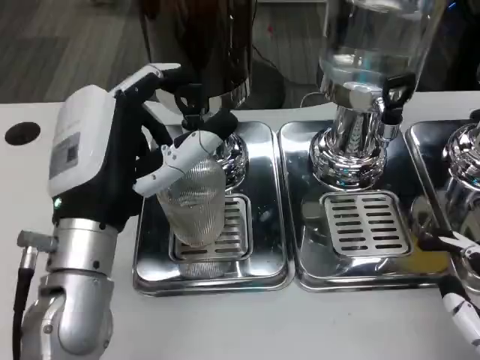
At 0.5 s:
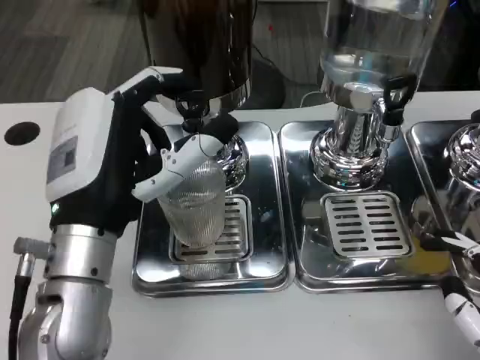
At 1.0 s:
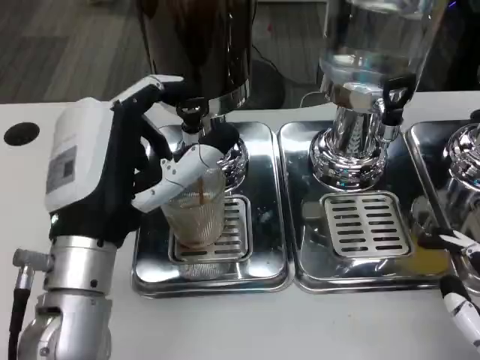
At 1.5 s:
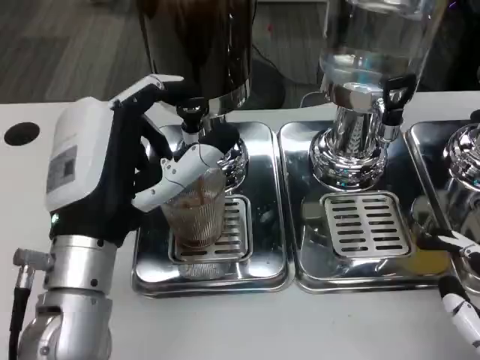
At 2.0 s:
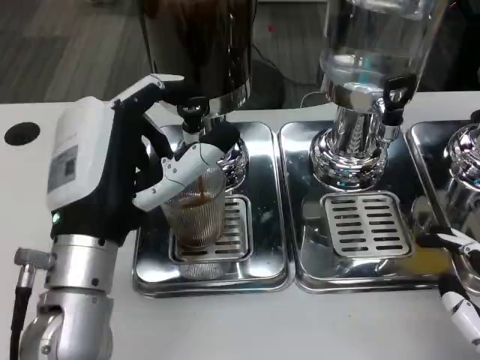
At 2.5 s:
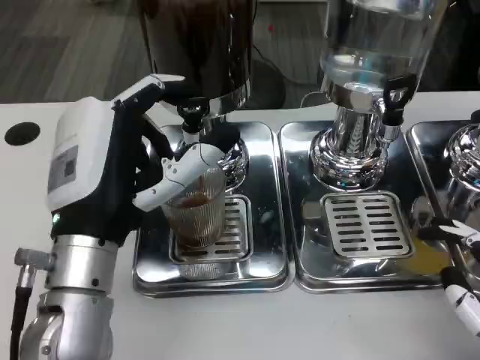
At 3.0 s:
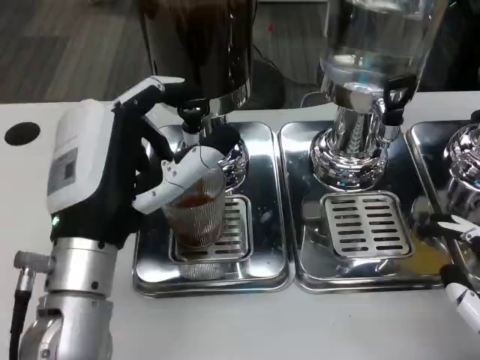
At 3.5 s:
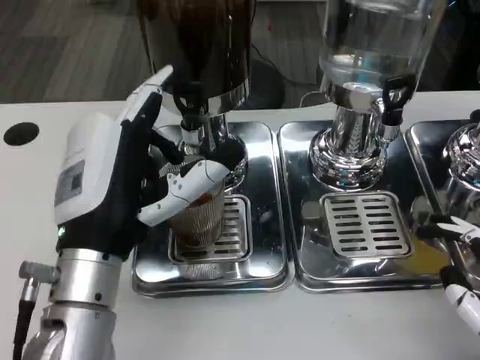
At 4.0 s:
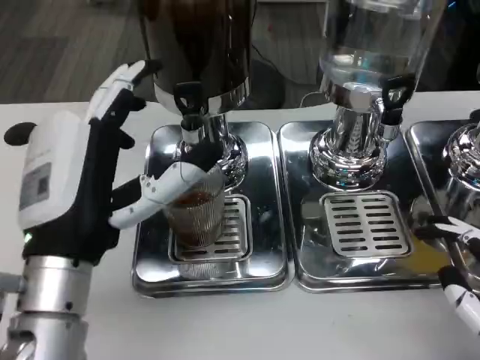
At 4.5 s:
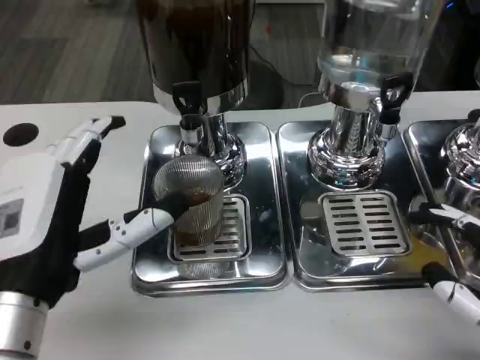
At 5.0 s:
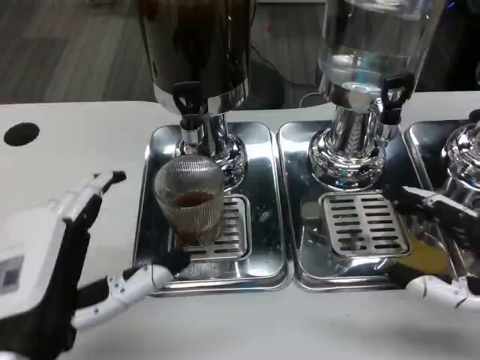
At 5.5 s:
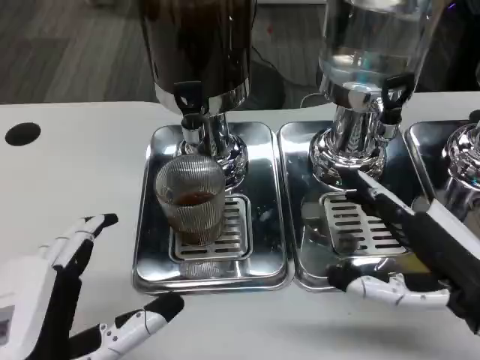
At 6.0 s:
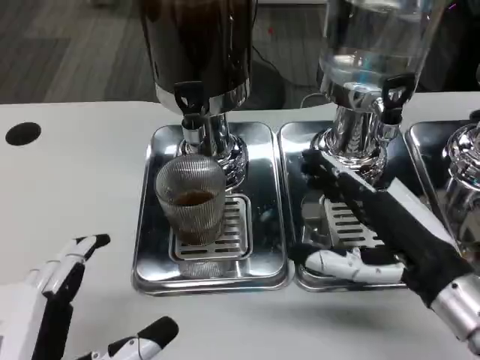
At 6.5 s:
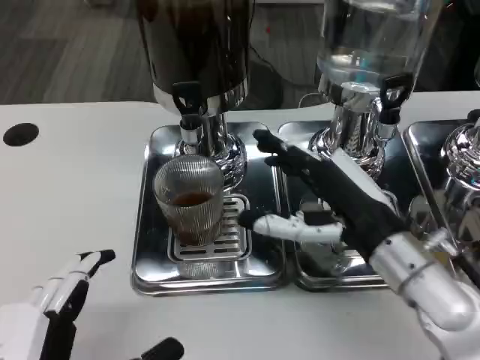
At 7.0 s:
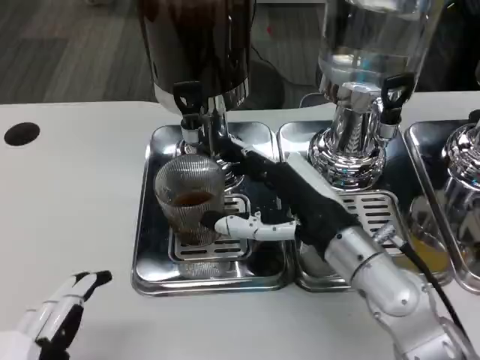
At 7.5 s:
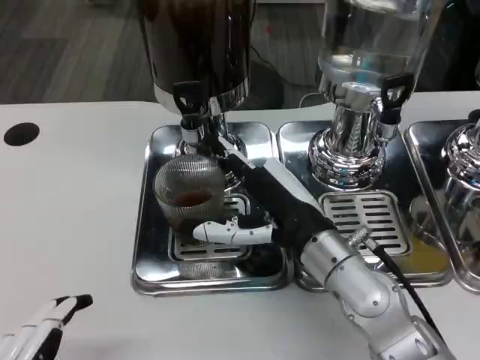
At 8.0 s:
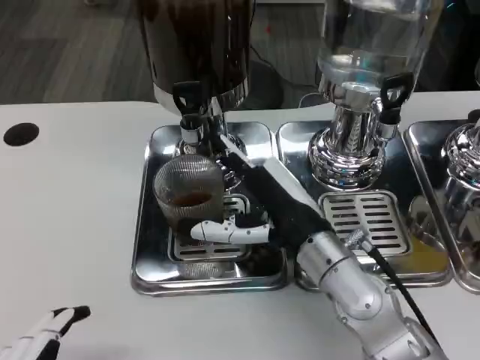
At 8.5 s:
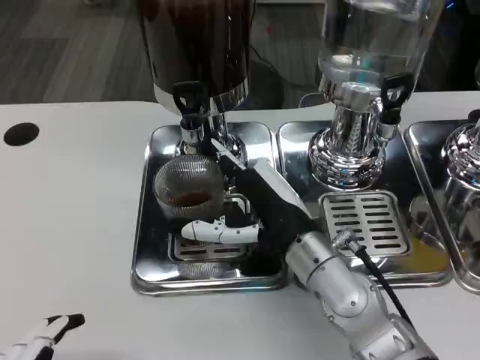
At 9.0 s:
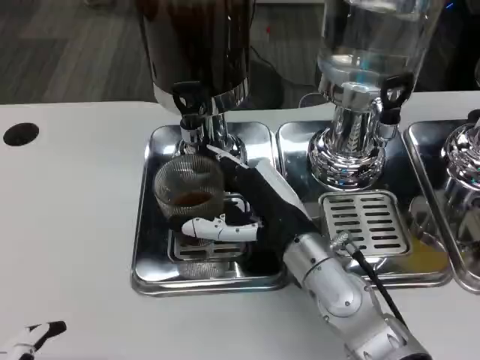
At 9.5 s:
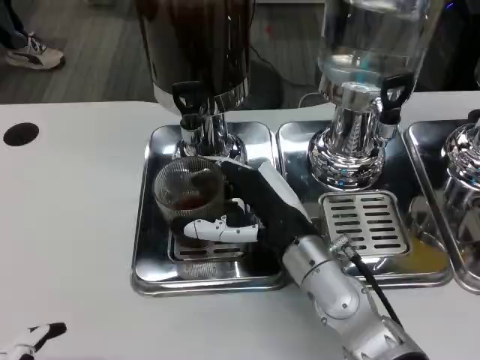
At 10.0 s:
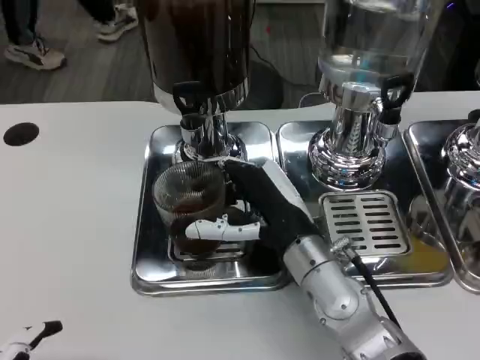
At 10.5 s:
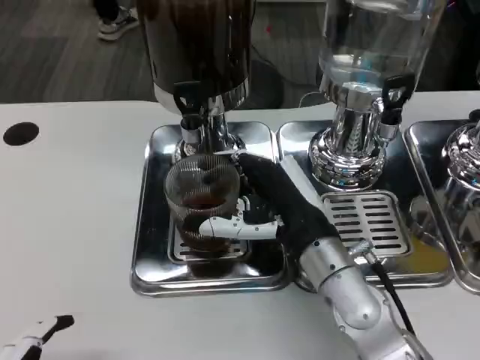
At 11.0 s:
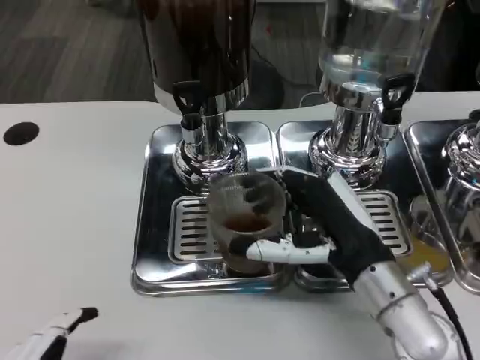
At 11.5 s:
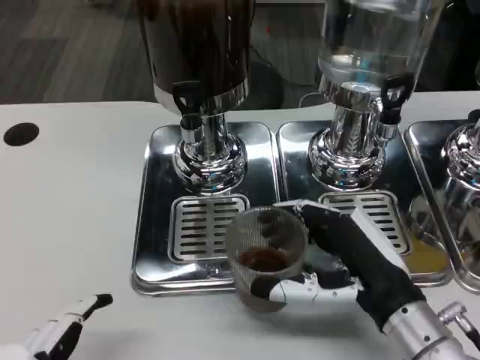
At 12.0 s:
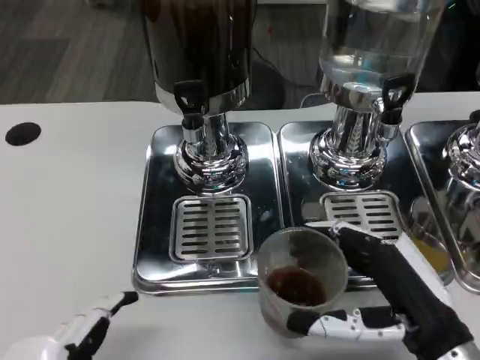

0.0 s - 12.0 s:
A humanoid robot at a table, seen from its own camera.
Task of the whole recording: Grasp the cup under the faucet to collect the drink, then remove the cup.
0.0 s - 2.0 s: The hands move only a little.
4.0 s - 6.0 s: The left hand is displaced backward by roughly 15 cm; the right hand moves forward and to the left, about 10 cm.
6.0 s - 8.0 s: The right hand shifts about 15 cm to the left and forward. The left hand shifts about 5 cm backward.
8.0 s - 10.0 s: The hands stay close to where they were, moving slightly.
10.0 s - 12.0 s: The right hand moves to the right and backward, some 15 cm.

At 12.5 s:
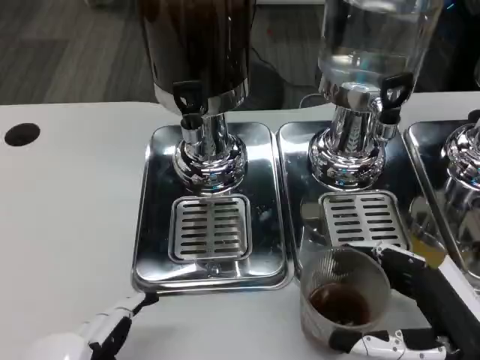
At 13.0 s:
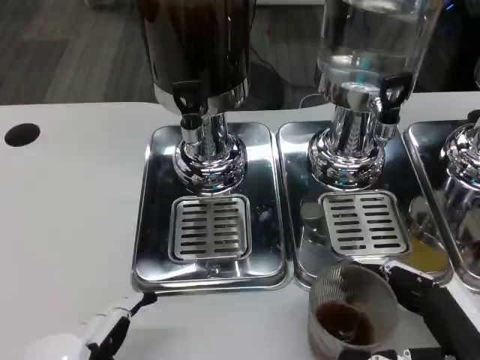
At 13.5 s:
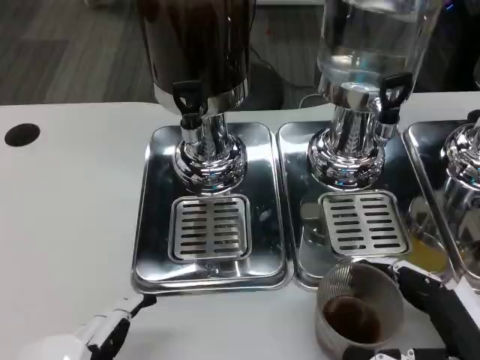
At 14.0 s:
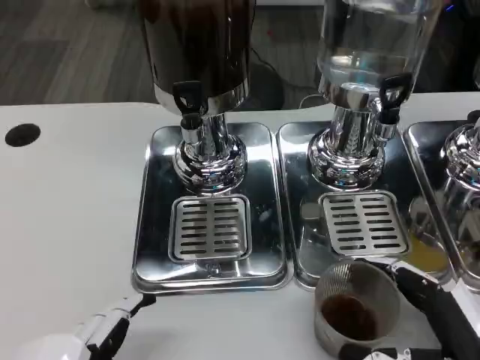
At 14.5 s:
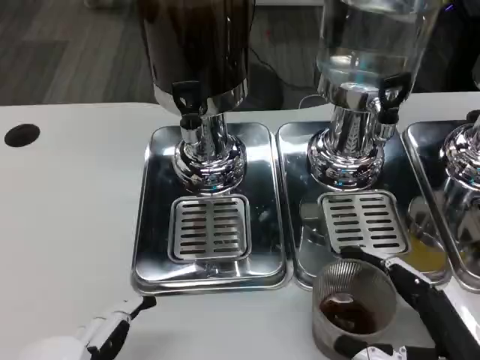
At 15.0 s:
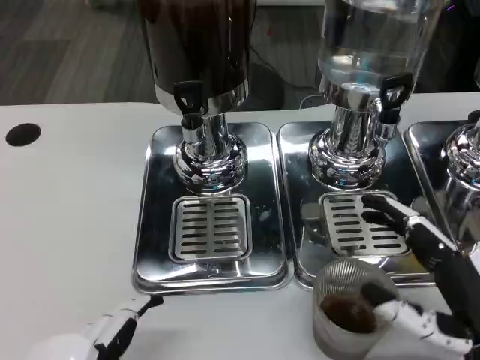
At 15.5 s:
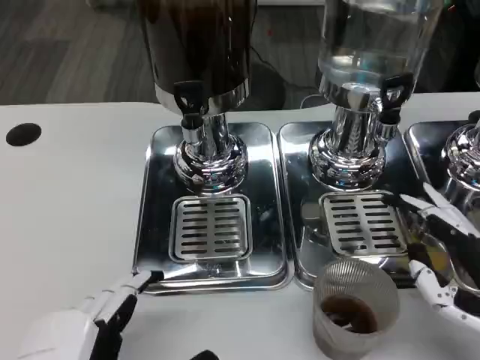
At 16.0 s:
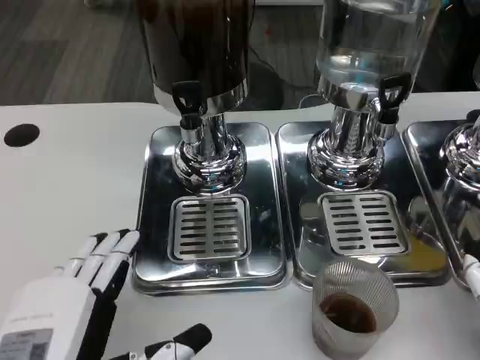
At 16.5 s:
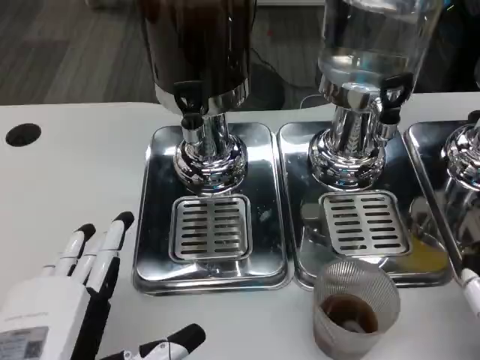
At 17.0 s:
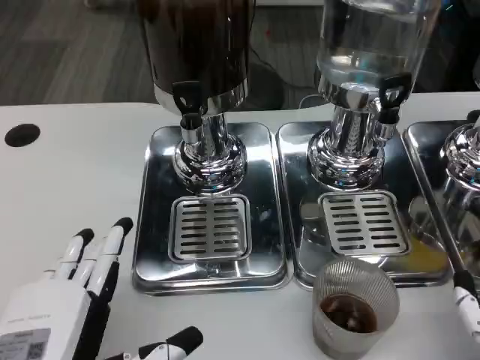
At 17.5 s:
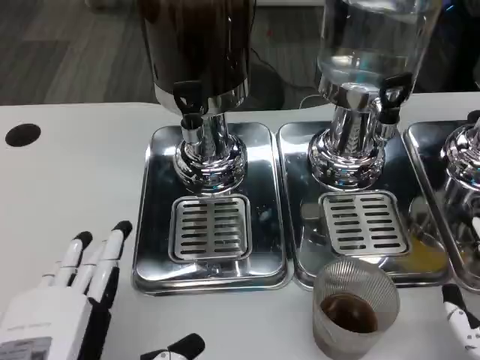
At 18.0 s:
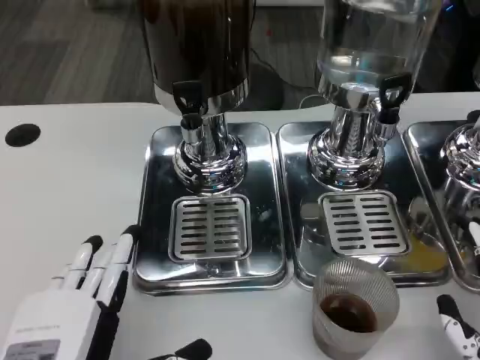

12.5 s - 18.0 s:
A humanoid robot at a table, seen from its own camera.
Task of the whole recording: Grasp the cup under the faucet to collect the drink, then remove the cup.
12.5 s - 14.5 s: The hands stay close to where they were, moving slightly.
14.5 s - 16.0 s: The right hand goes about 10 cm upward.
16.0 s - 18.0 s: There are only small adjustments of the hands.

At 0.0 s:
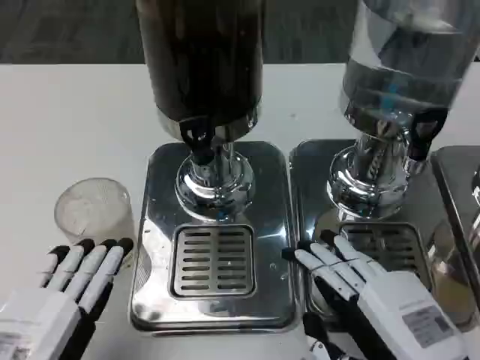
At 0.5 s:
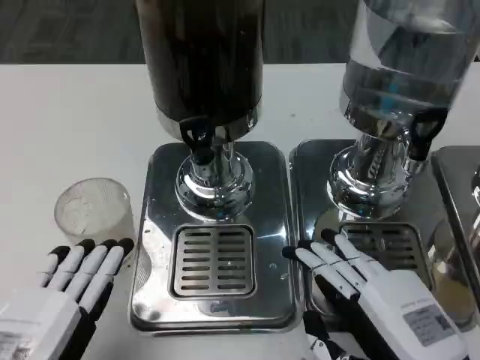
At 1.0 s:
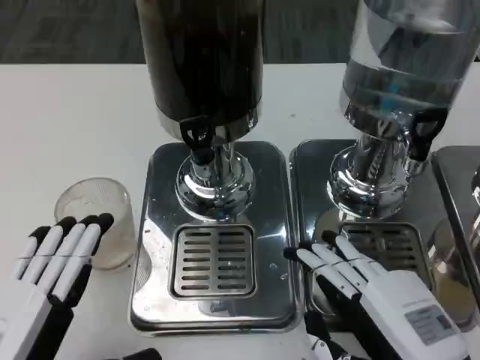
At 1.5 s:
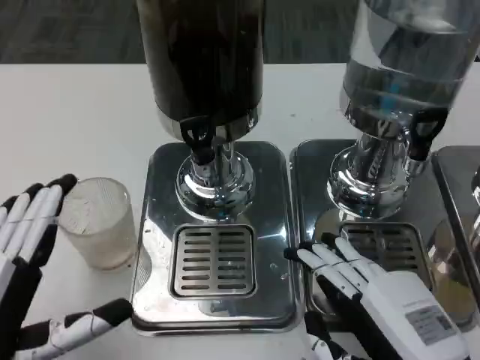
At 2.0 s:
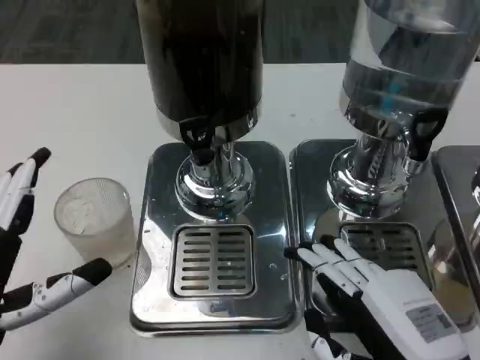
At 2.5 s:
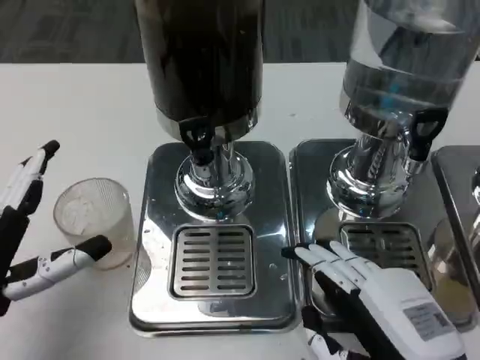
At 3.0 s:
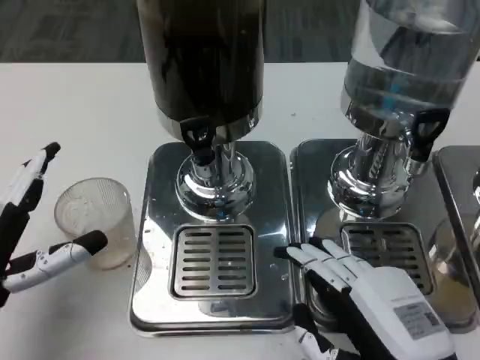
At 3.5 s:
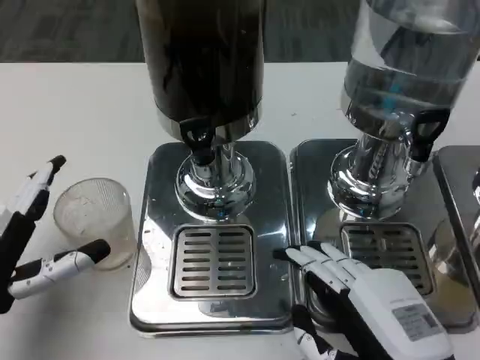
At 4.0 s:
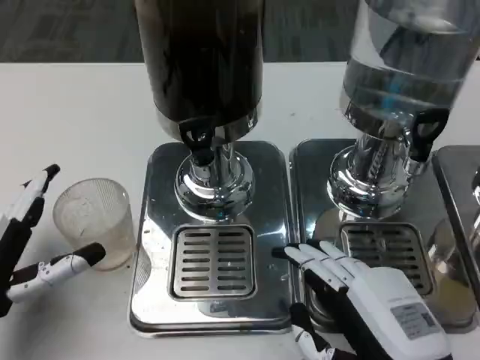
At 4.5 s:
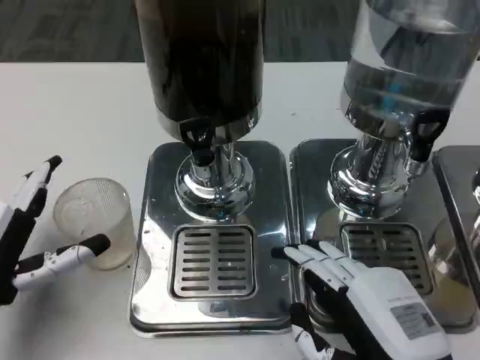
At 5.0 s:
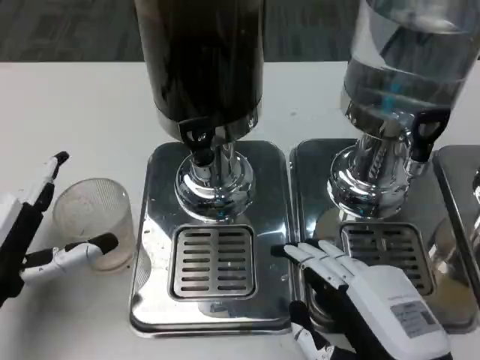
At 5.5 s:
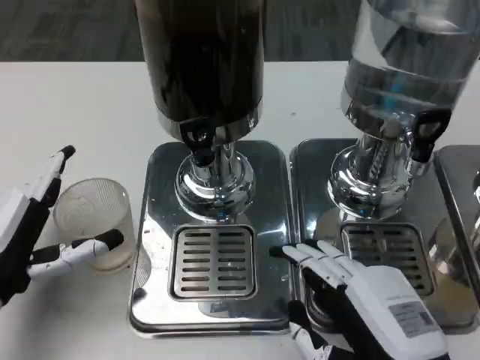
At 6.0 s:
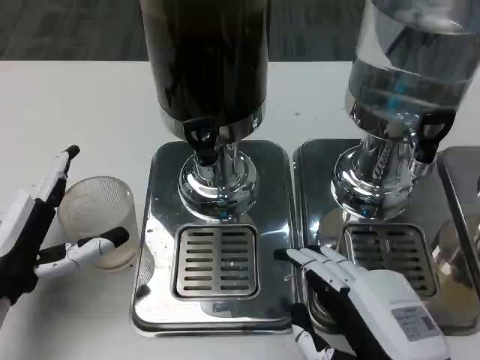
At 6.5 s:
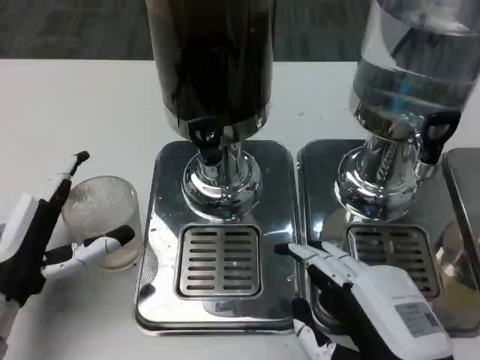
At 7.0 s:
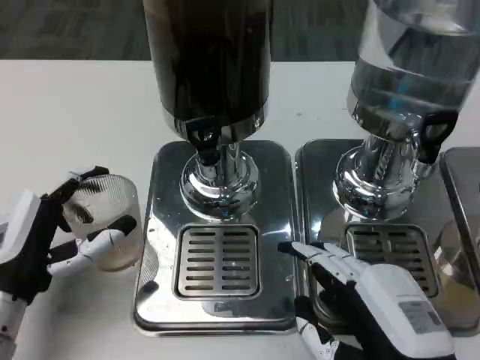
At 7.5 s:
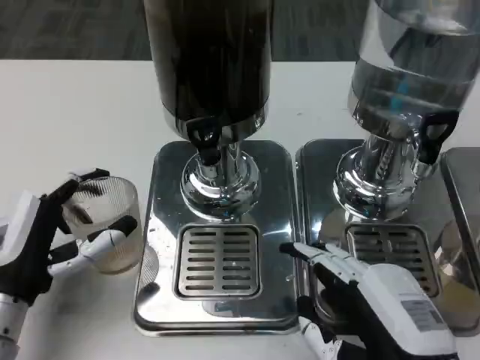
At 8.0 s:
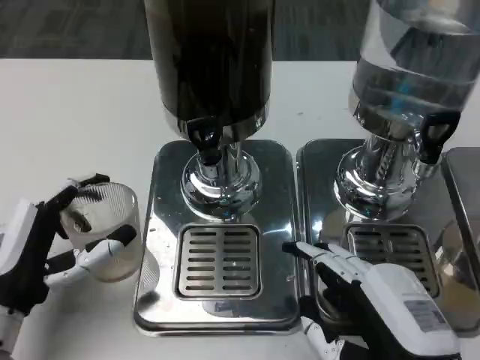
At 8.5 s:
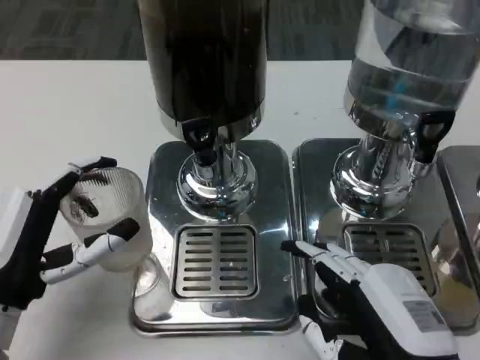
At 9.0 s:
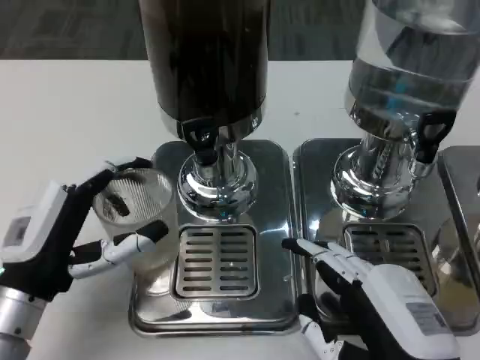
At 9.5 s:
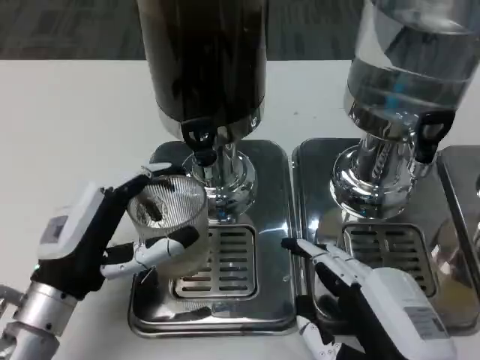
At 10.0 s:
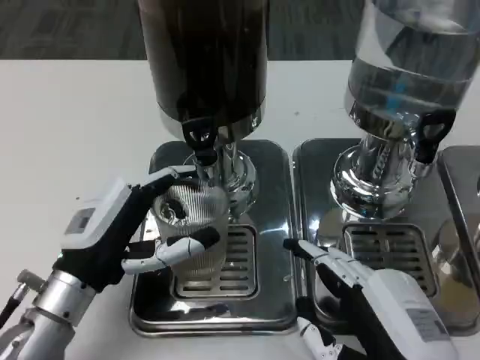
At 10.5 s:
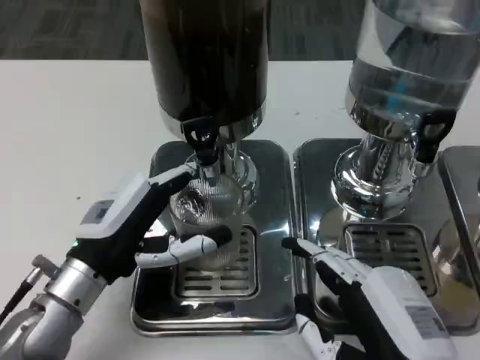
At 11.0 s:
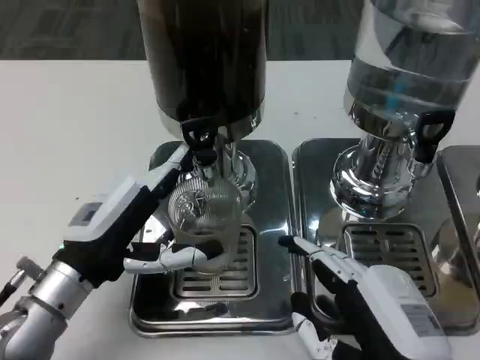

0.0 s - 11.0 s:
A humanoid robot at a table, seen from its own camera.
Task of the whole recording: Grasp the cup under the faucet to collect the drink, then remove the cup.
0.0 s - 2.0 s: The left hand travels forward by approximately 5 cm.
2.0 s - 3.5 s: The left hand shifts by some 5 cm.
3.5 s - 5.5 s: The hands move only a little.
